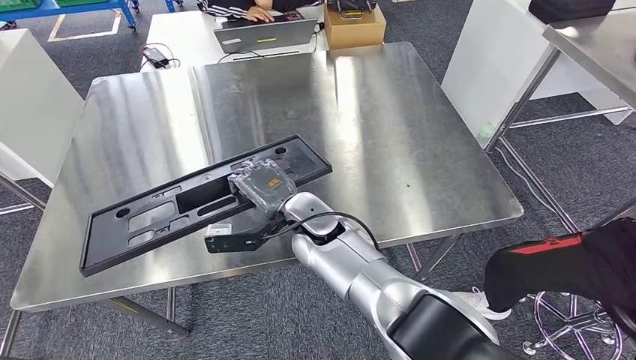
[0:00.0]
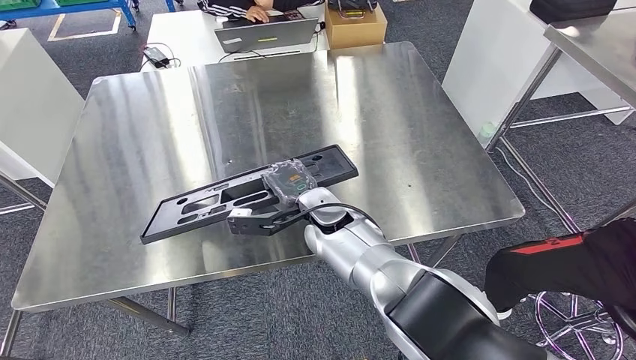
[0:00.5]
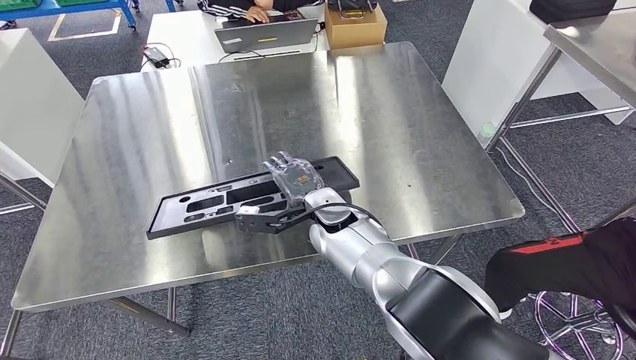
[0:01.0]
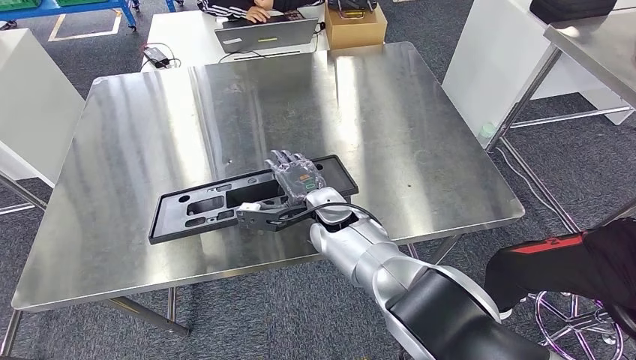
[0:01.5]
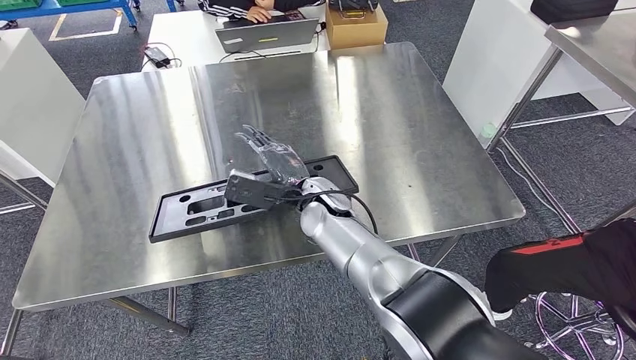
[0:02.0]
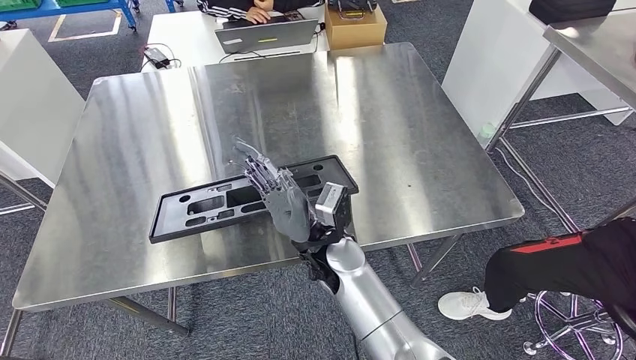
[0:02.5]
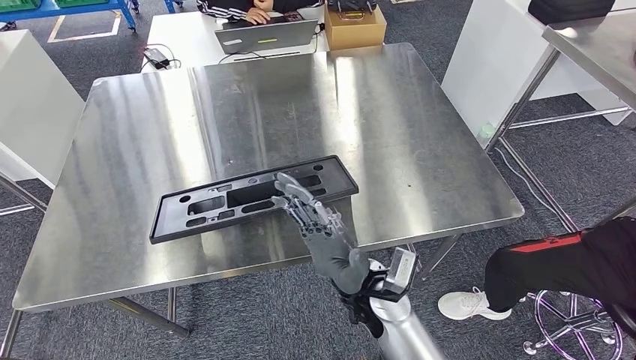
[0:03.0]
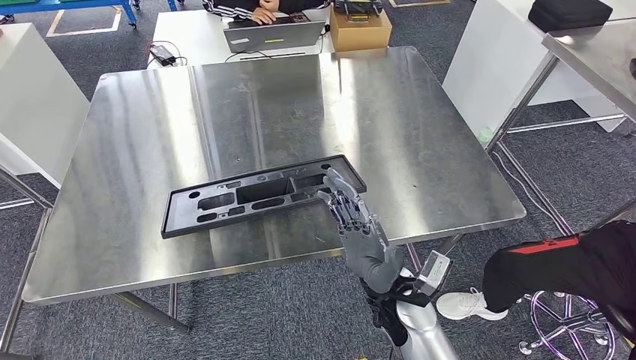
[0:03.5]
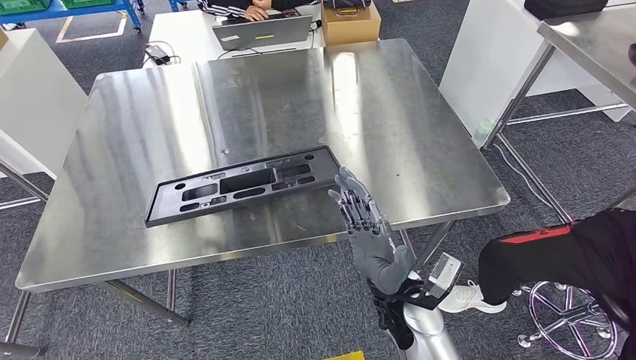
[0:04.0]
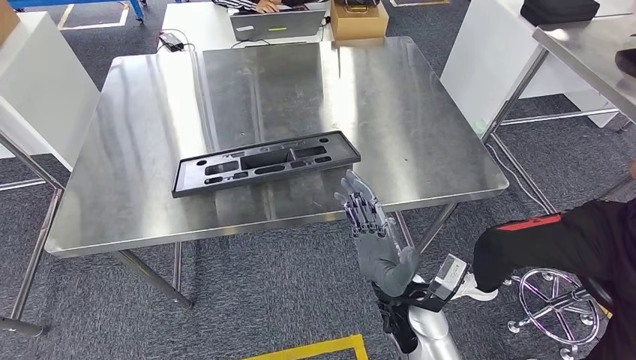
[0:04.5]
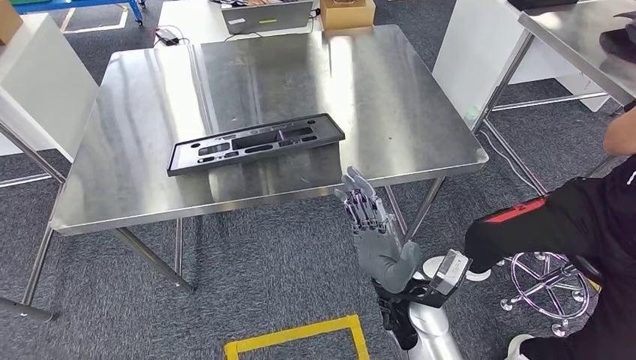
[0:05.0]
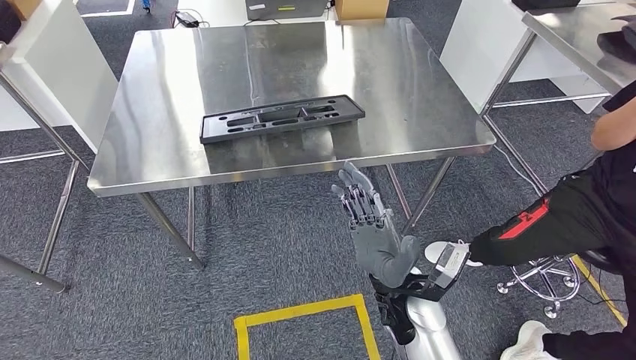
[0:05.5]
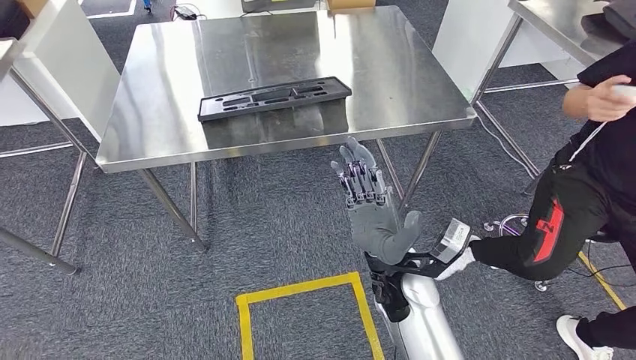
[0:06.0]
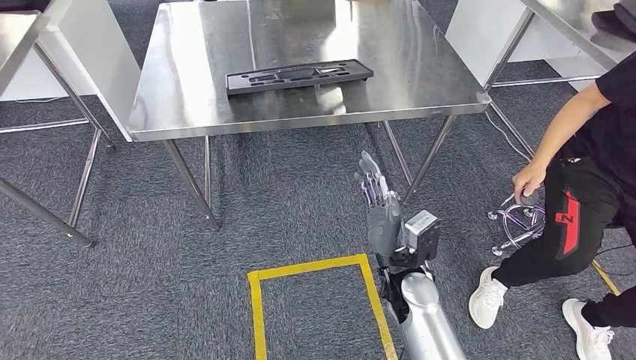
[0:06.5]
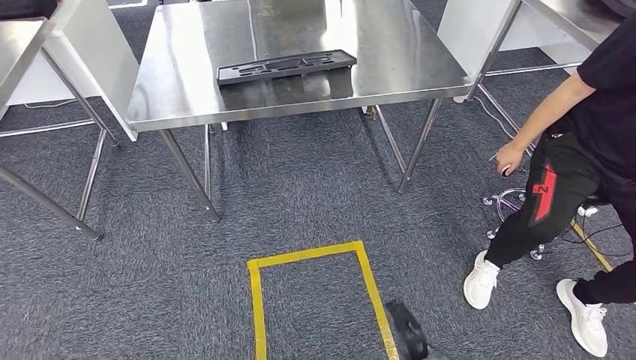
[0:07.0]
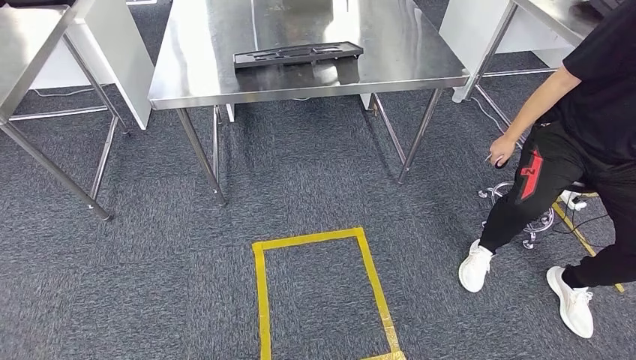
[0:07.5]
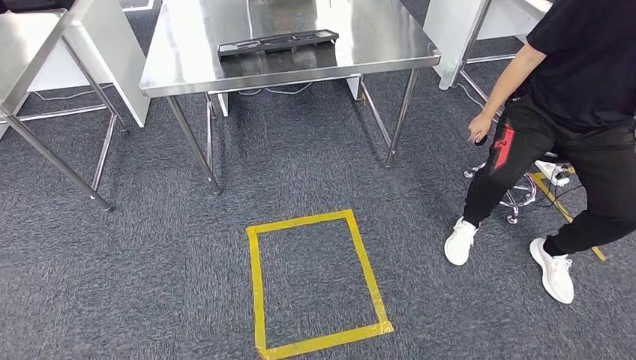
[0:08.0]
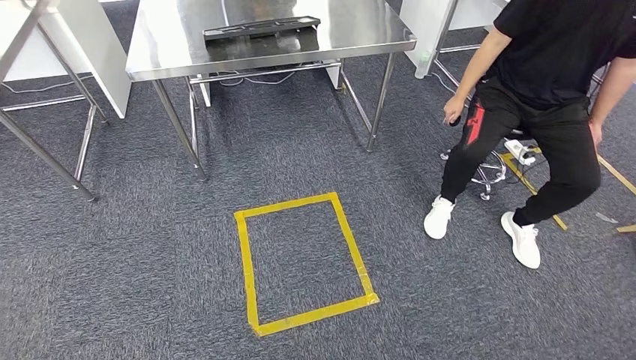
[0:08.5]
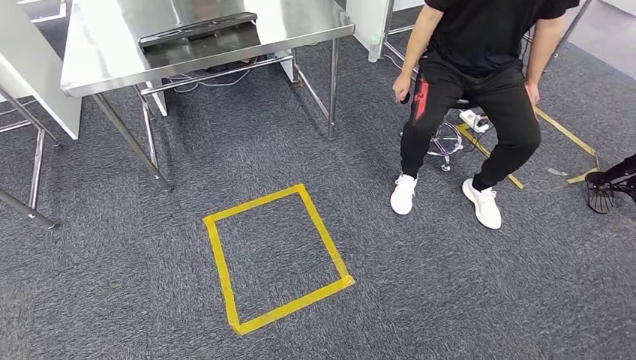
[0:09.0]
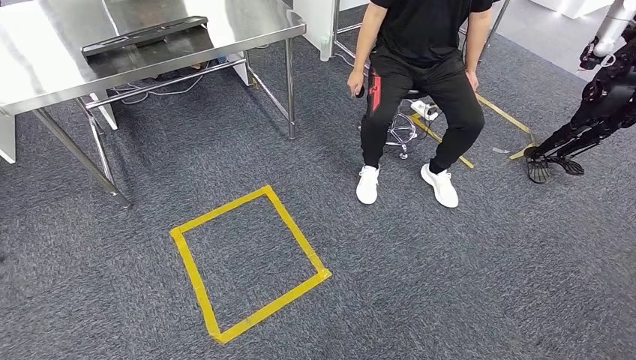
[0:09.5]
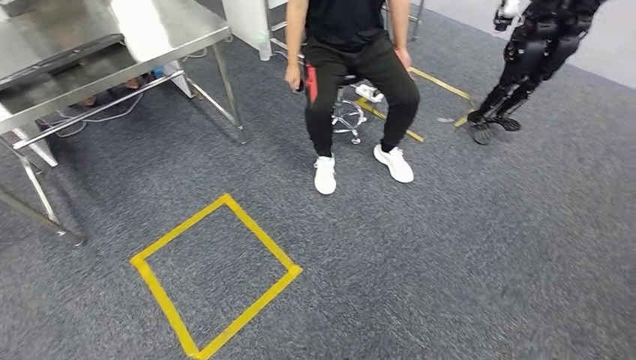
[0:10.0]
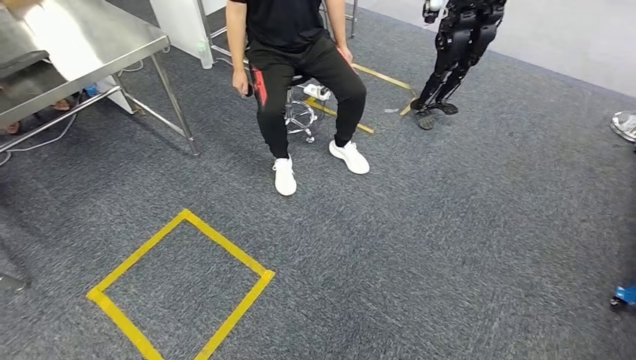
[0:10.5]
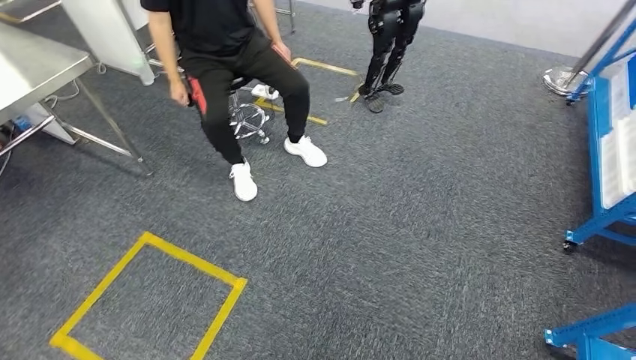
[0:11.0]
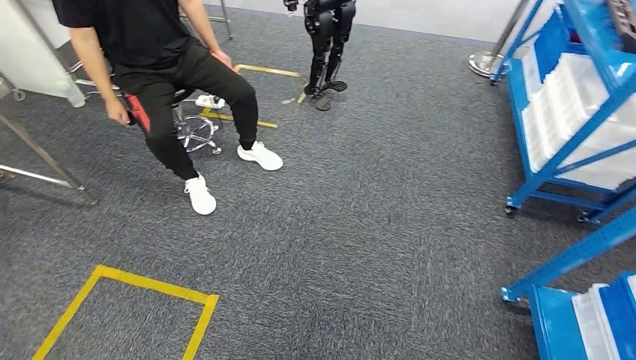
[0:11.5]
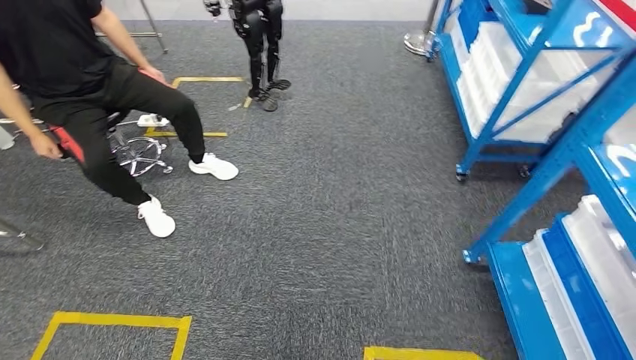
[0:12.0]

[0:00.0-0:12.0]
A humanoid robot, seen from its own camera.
Step, 0:00.0 to 0:08.0: Insert the large material into the corresponding slot on the workbench.

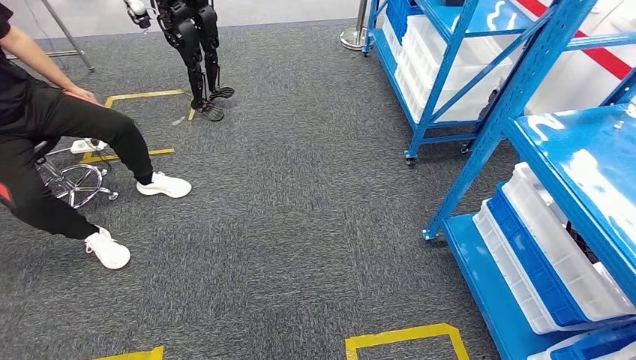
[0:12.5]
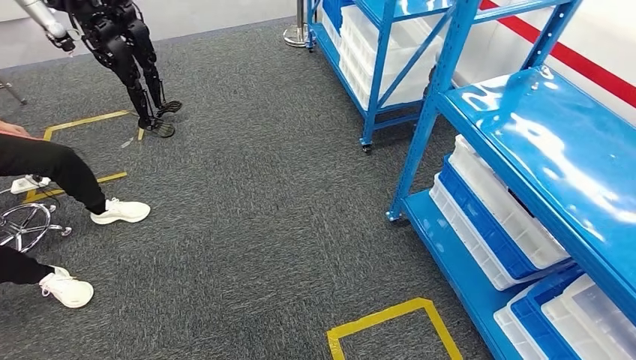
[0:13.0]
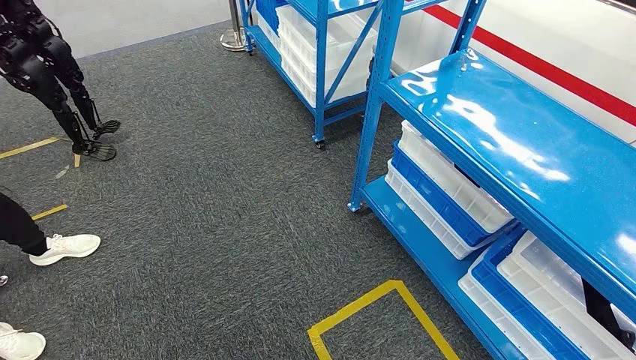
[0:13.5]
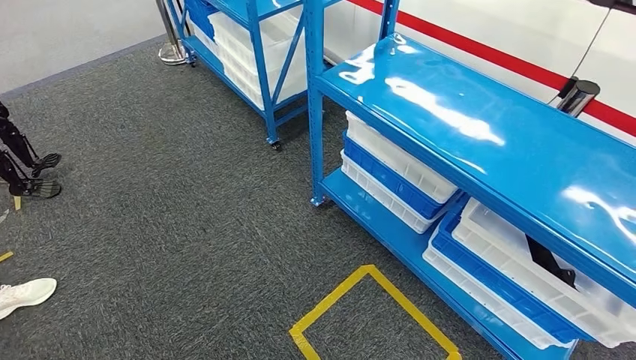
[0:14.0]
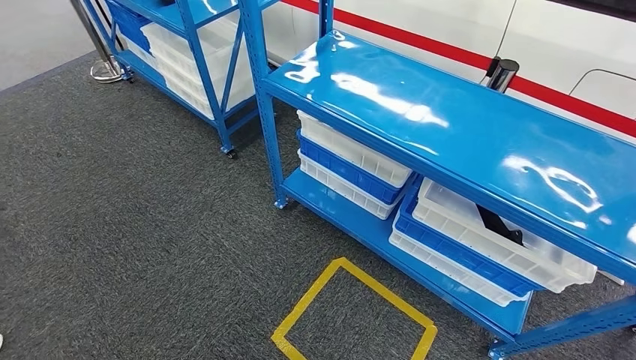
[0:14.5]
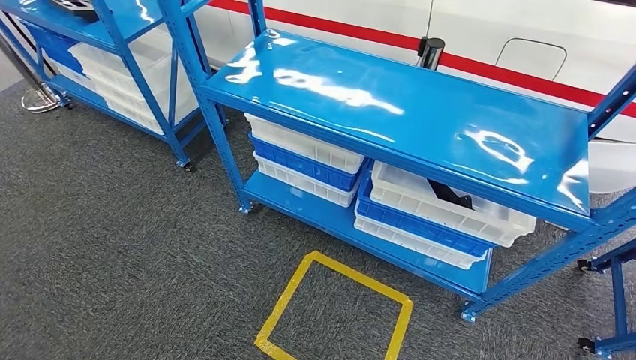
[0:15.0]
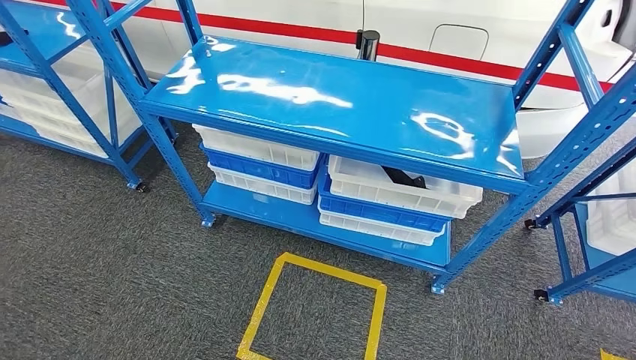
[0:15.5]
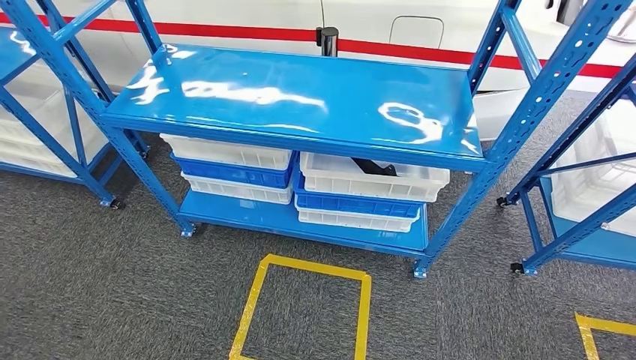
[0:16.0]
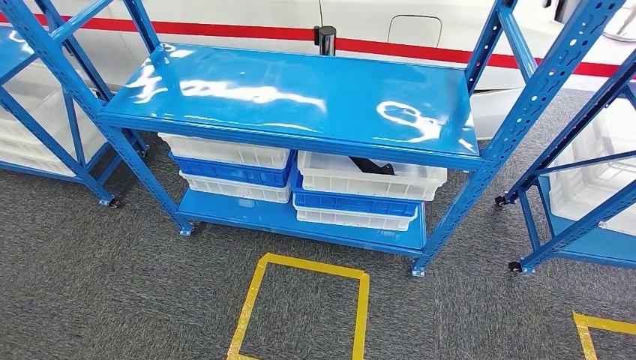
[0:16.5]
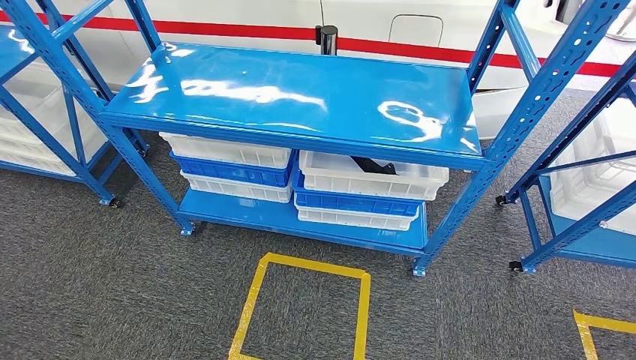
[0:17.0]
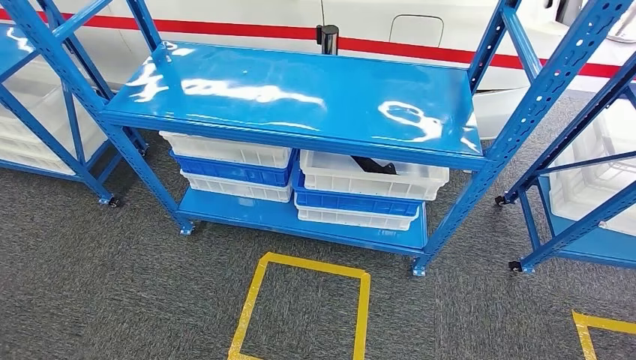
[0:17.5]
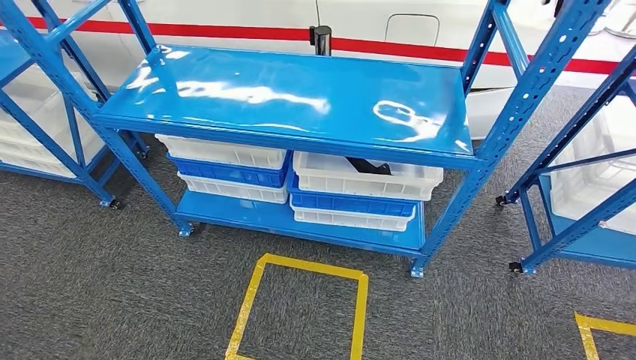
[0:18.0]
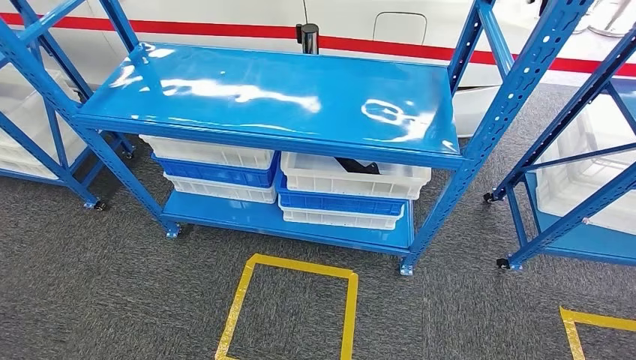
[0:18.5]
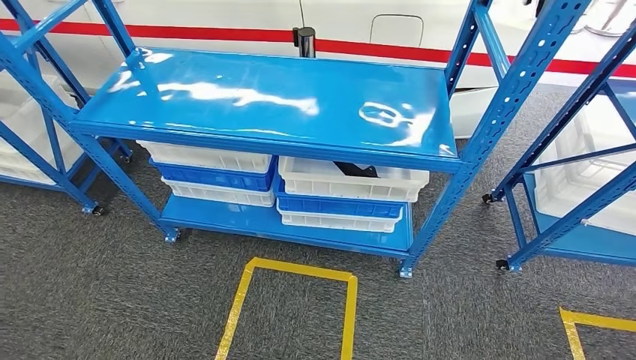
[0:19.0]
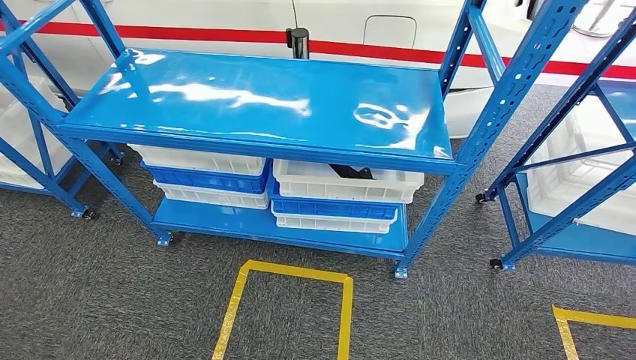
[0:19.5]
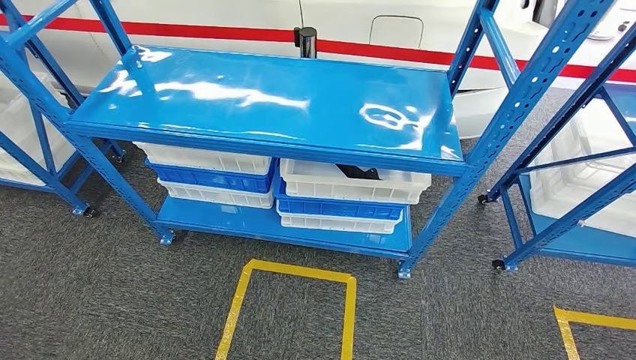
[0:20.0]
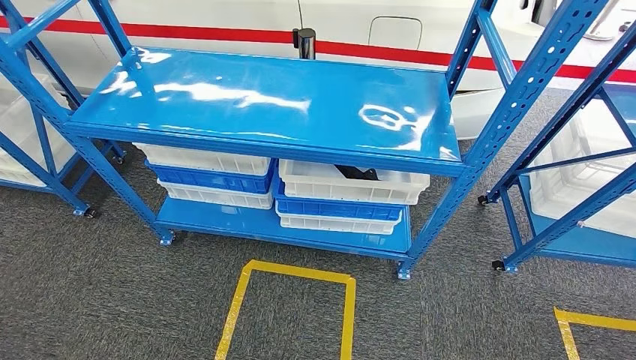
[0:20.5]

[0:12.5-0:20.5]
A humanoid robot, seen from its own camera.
Step, 0:12.5 to 0:20.5: Return to the initial position at the shelf.
